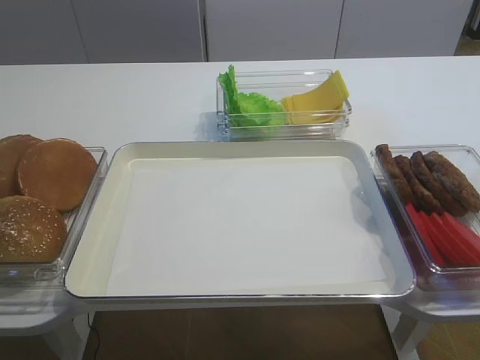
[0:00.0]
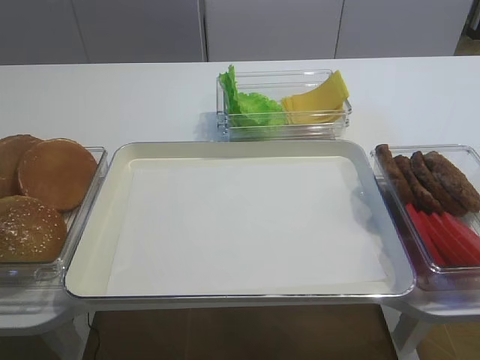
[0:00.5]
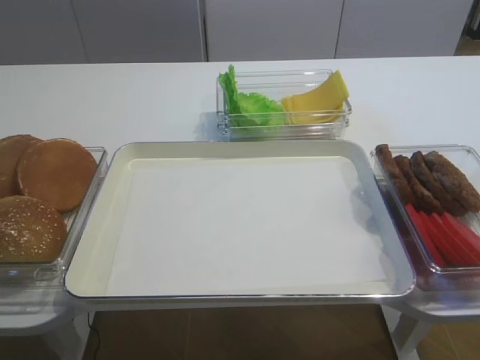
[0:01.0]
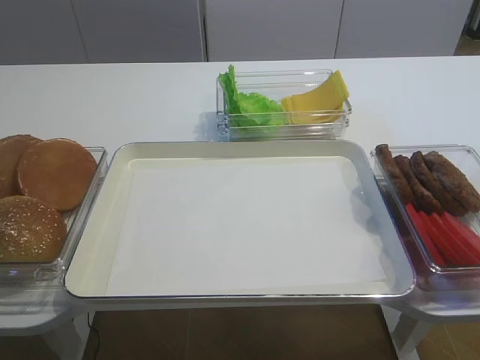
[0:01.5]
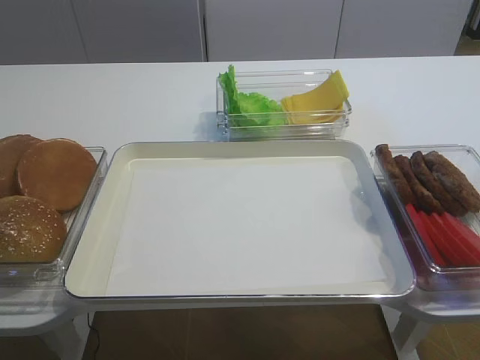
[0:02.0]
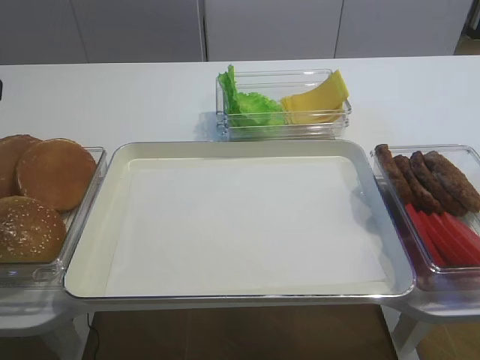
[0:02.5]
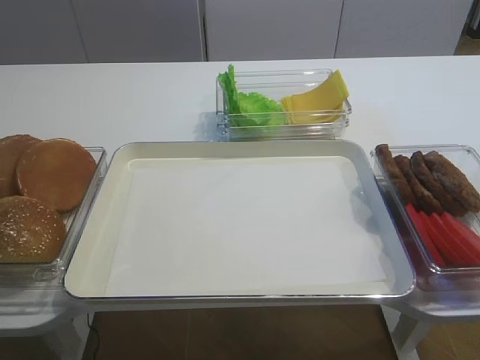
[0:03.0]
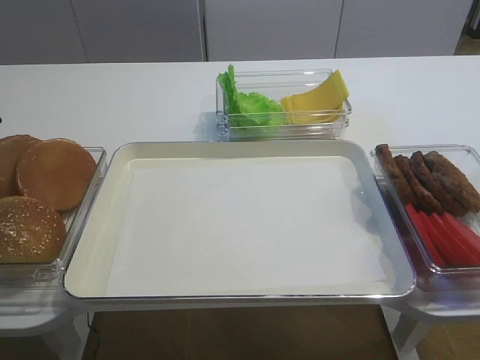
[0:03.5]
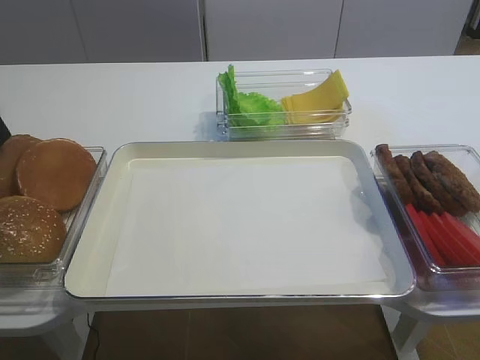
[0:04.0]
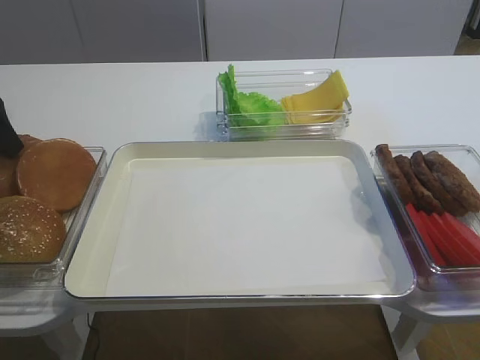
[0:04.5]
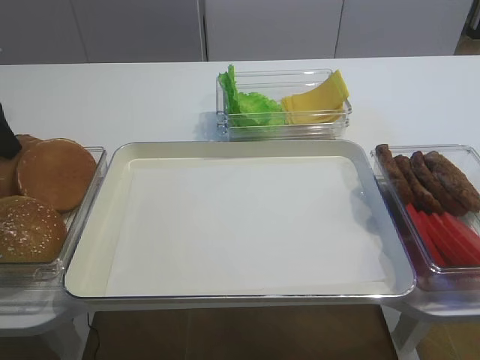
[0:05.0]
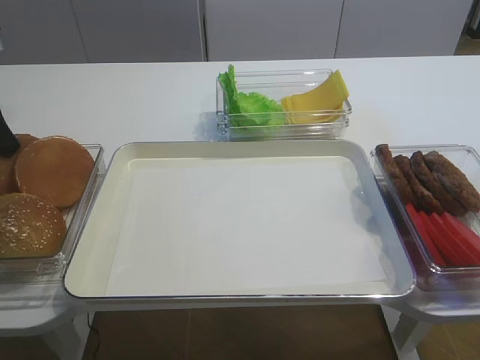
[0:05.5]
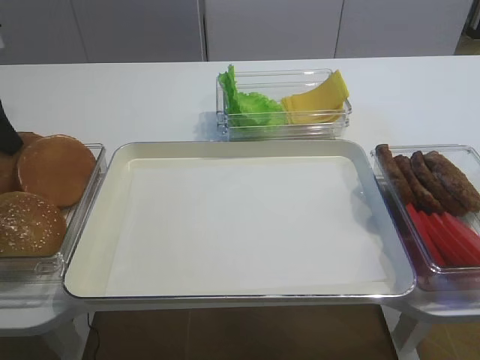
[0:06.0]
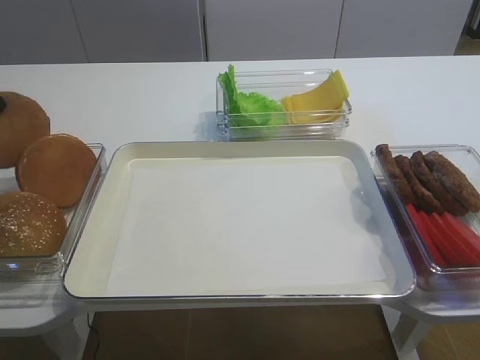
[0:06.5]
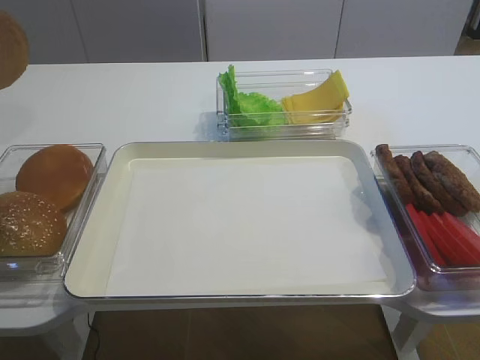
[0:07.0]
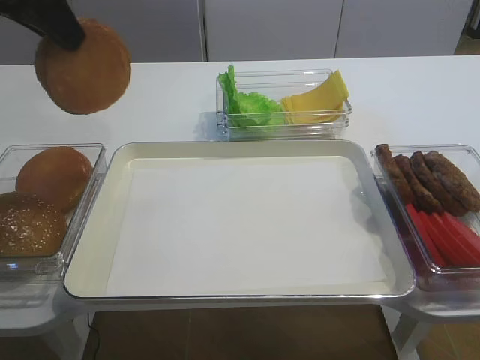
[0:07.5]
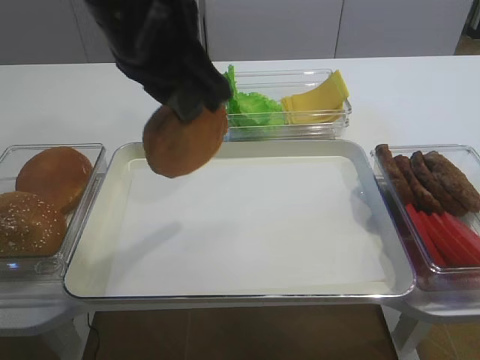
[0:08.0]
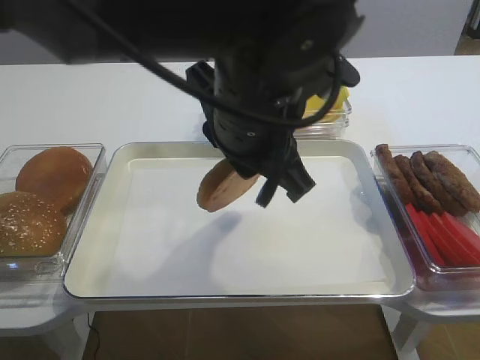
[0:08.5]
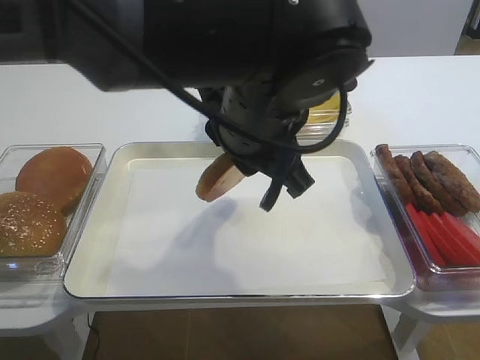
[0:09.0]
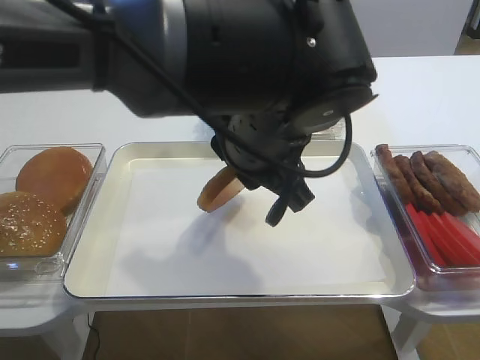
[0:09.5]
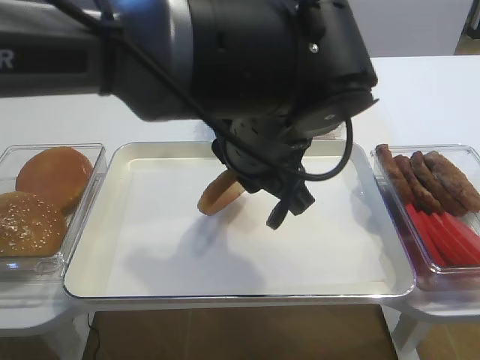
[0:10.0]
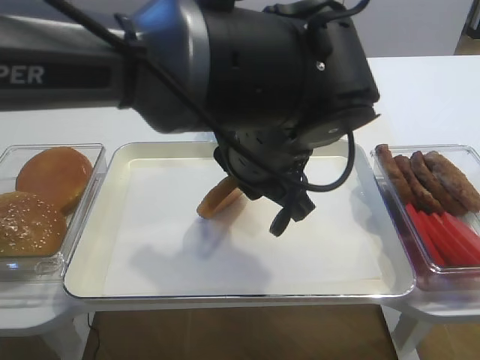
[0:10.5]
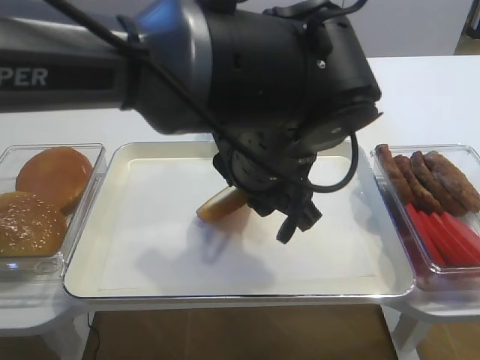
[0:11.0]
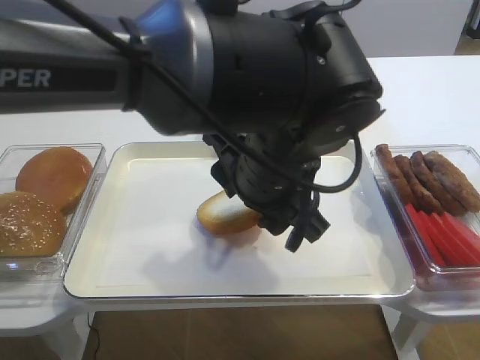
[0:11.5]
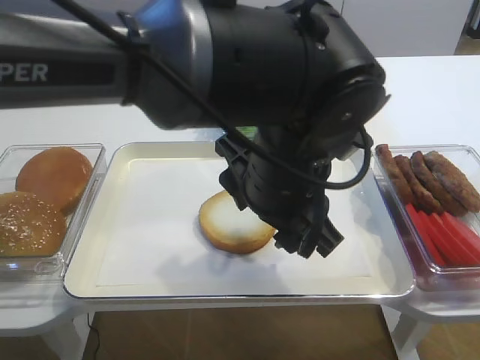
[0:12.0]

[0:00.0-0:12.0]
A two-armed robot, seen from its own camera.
Step, 0:00.0 to 0:06.5: Pick up the bread slice with the left gripper.
0:04.0 to 0:06.0: The left gripper closes up.
0:06.0 to 0:08.0: The left gripper heads to the right and upward, covering some 25 cm.
0:08.0 to 0:10.0: The left gripper shifts roughly 15 cm to the right and downward. Meanwhile the right gripper closes its fingers.
0:10.0 to 0:12.0: The left gripper opens.

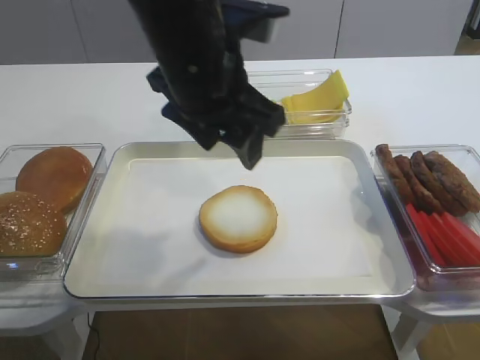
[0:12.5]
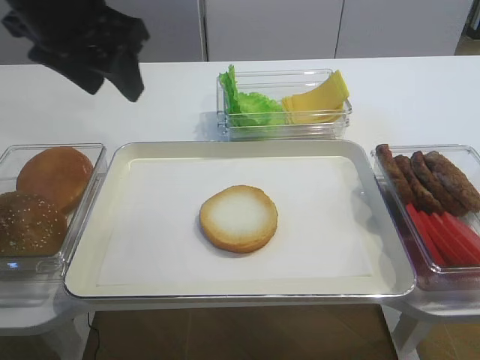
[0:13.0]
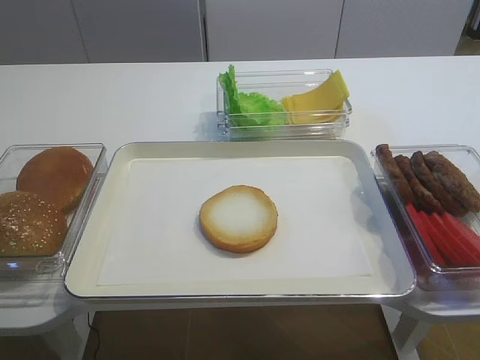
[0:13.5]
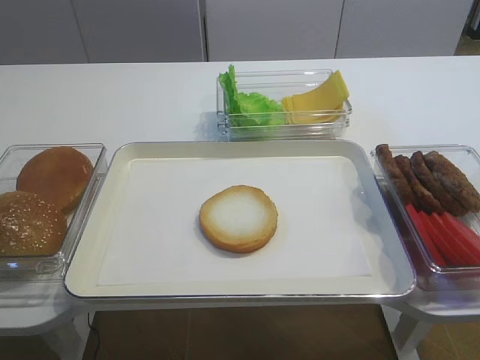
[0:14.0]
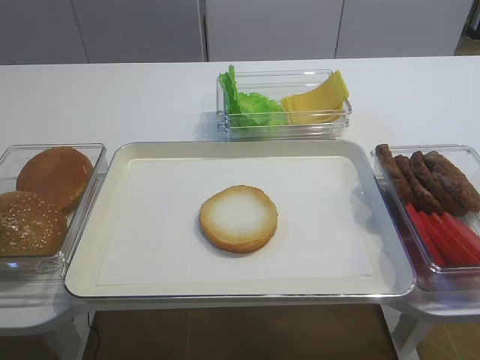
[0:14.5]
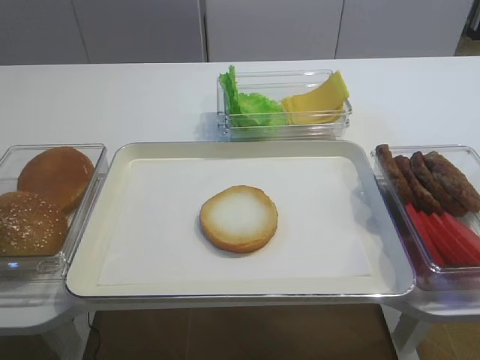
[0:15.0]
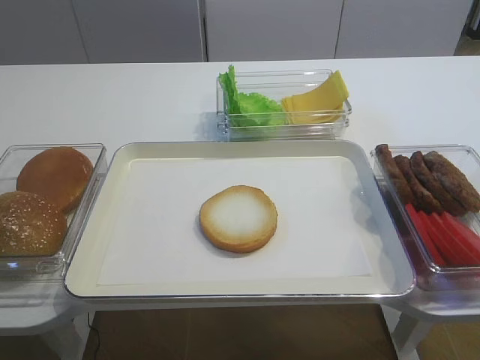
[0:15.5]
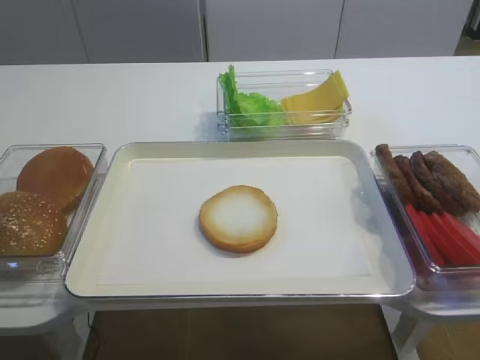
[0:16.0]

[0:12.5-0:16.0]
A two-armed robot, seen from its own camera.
0:12.5 to 0:14.5: The left gripper moves backward and to the left, approximately 35 cm.

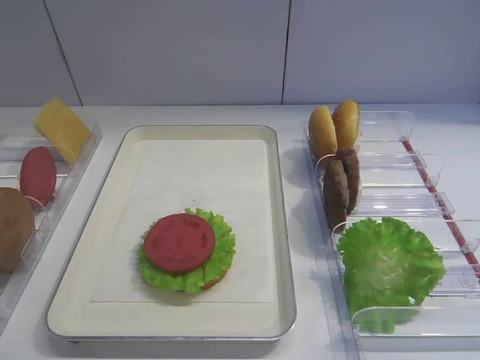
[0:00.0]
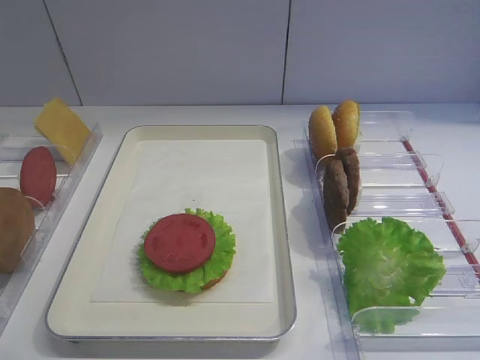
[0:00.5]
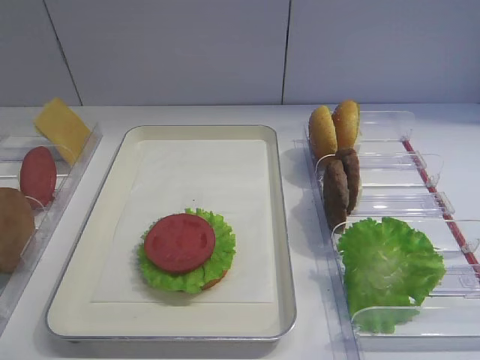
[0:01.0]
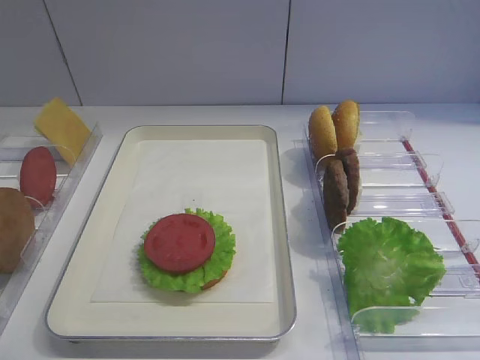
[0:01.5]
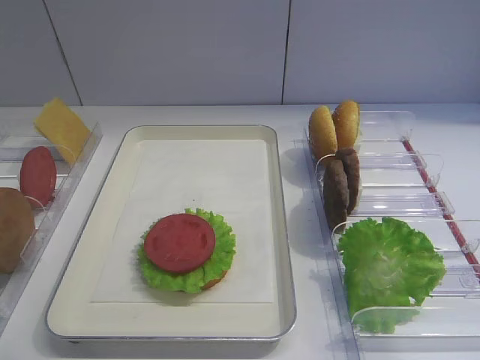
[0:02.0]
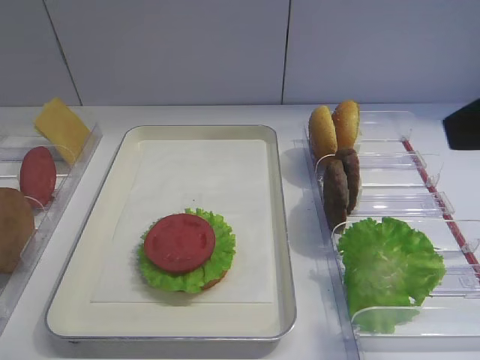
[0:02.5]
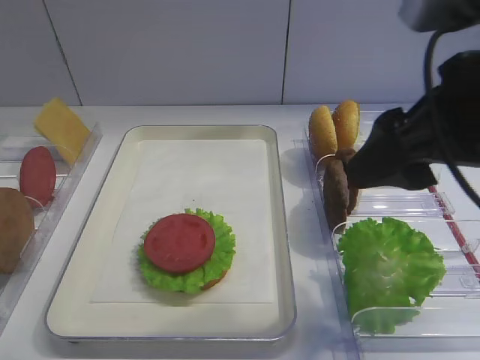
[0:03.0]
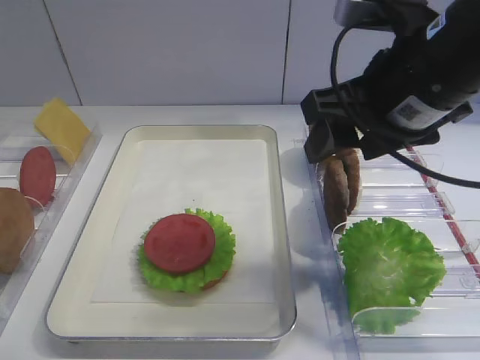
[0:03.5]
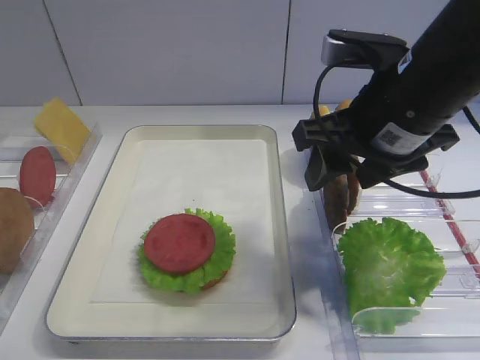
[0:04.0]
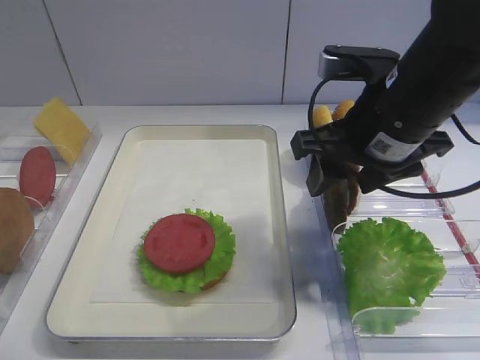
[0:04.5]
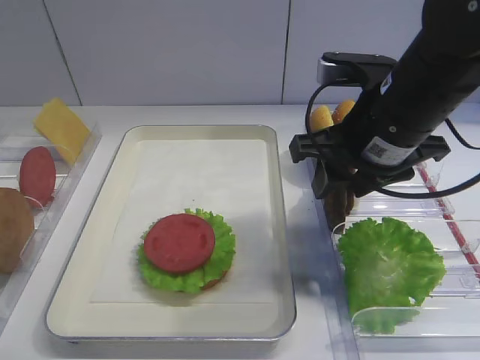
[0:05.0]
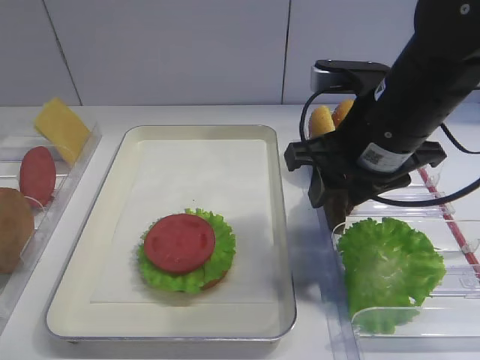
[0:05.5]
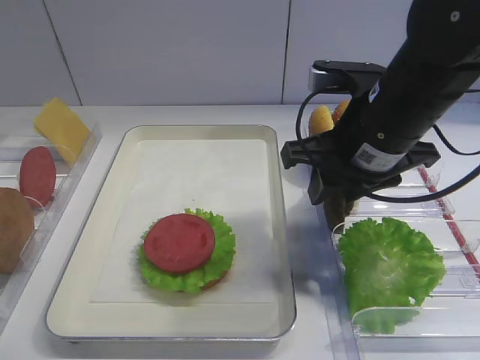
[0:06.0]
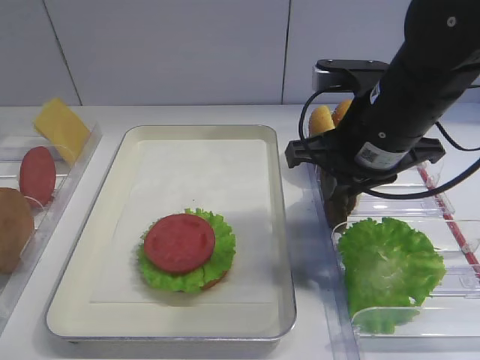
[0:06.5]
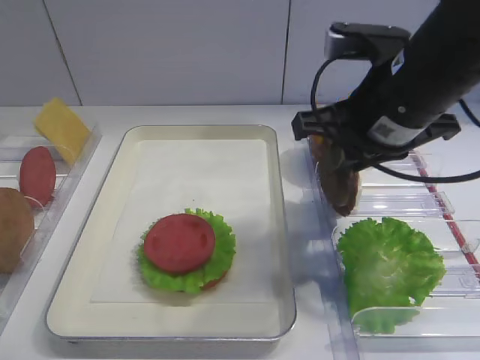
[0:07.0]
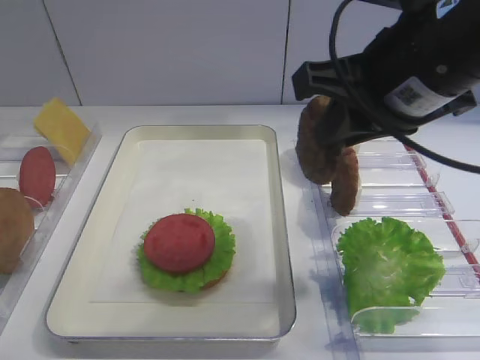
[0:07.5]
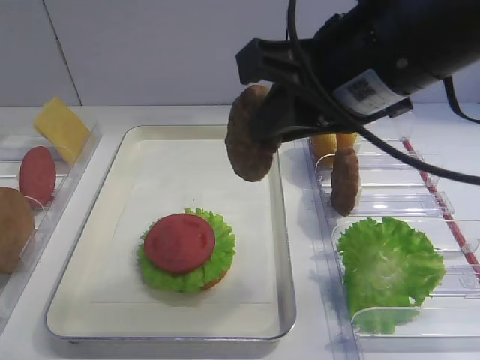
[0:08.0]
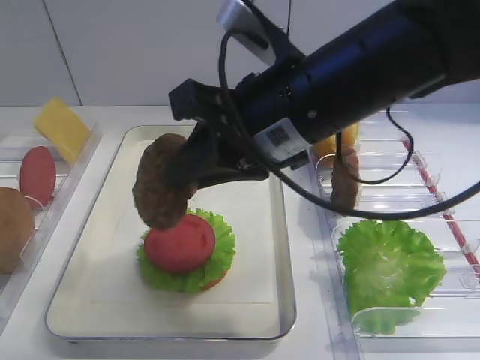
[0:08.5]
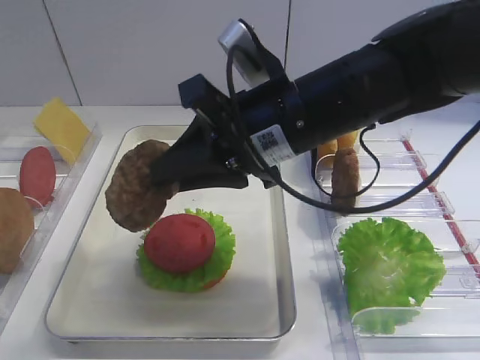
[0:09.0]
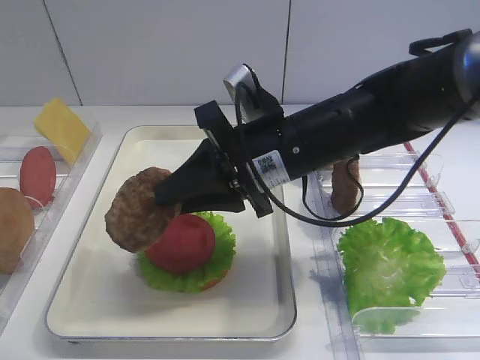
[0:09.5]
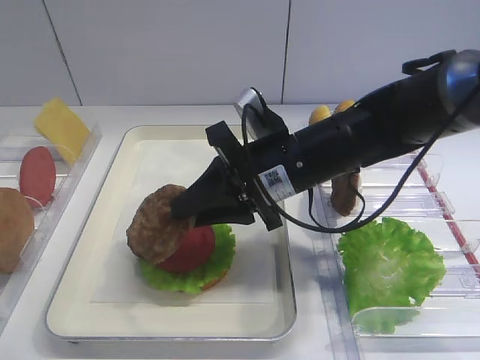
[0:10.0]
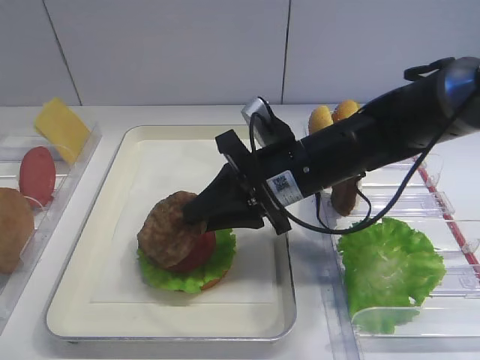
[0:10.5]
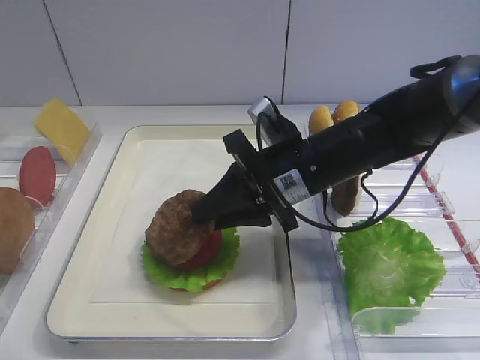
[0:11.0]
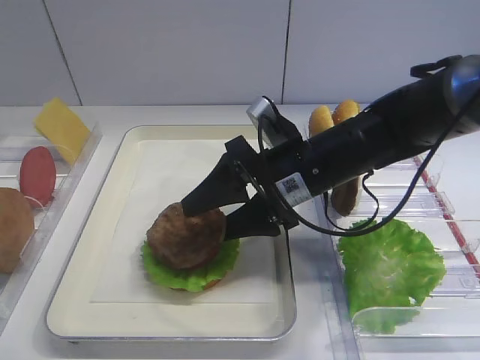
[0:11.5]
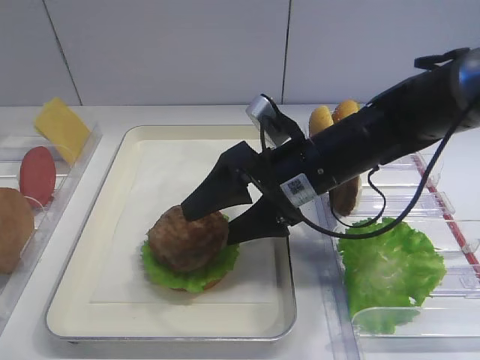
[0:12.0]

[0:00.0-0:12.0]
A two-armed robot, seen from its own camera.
Step, 0:00.0 to 0:07.0: Pick up the cutlet with the right gripper.
0:02.0 to 0:04.0: The right gripper heads forward and to the left, covering roughly 25 cm.
0:04.0 to 0:06.0: The grippers stay close to where they were, moving slightly.
0:06.0 to 0:08.0: The right gripper goes about 10 cm upward and backward, and closes up.
0:08.0 to 0:10.0: The right gripper travels downward and forward by approximately 15 cm.
0:10.0 to 0:12.0: The right gripper opens its fingers.
